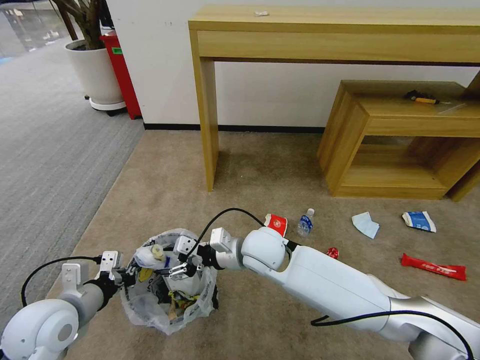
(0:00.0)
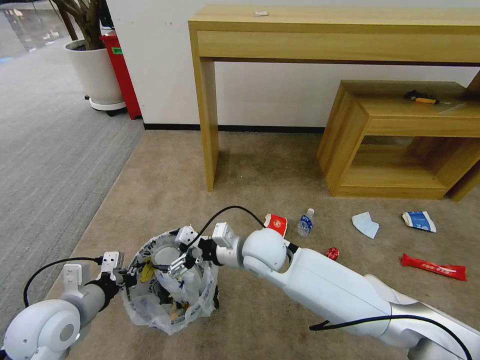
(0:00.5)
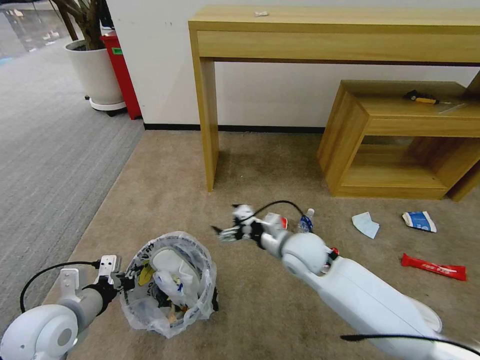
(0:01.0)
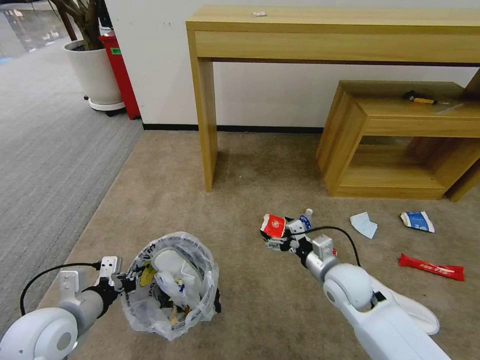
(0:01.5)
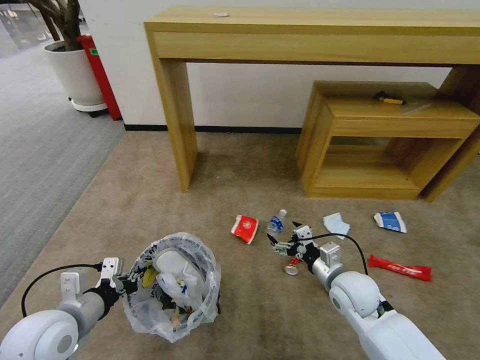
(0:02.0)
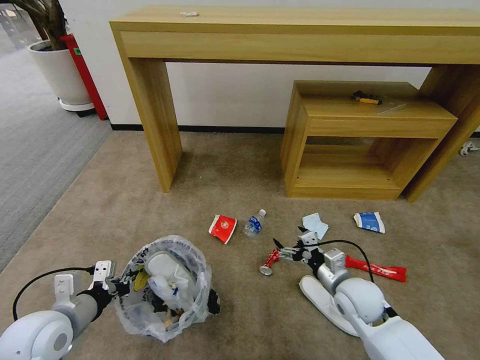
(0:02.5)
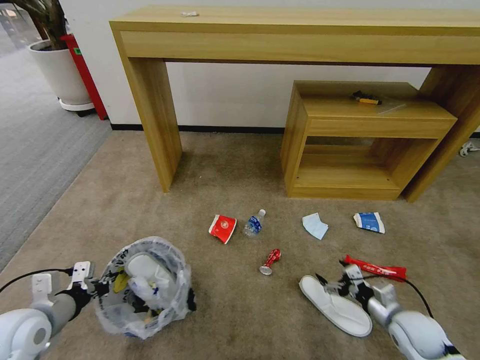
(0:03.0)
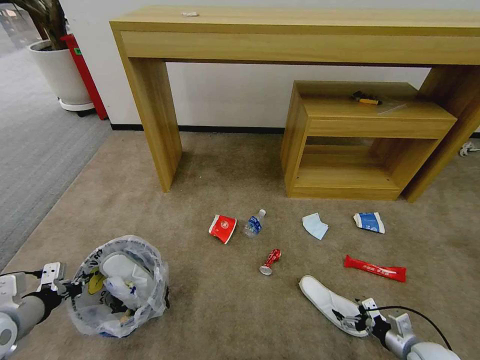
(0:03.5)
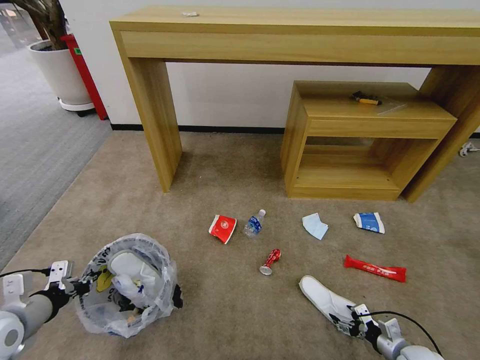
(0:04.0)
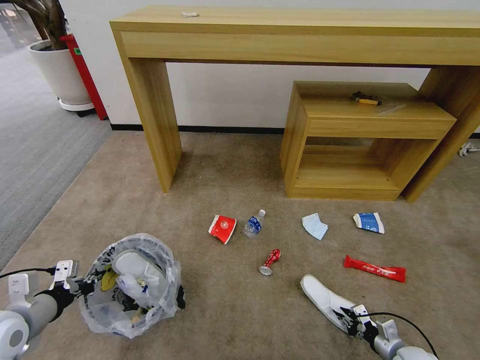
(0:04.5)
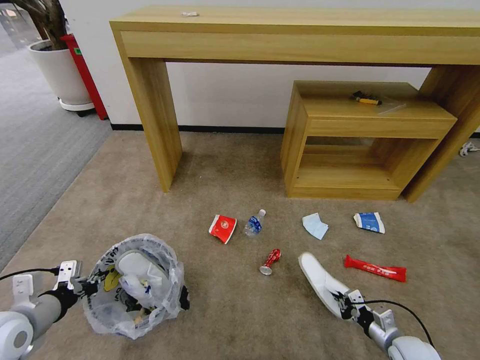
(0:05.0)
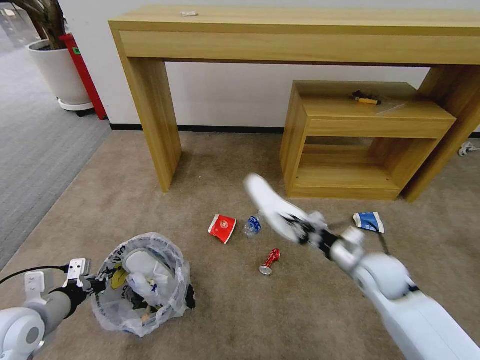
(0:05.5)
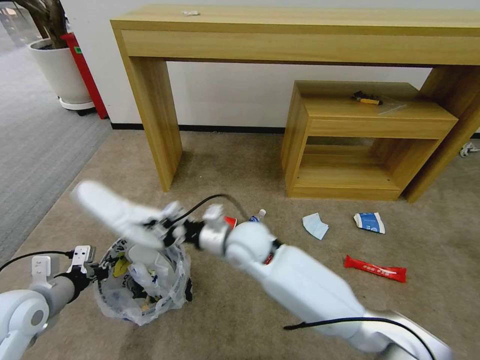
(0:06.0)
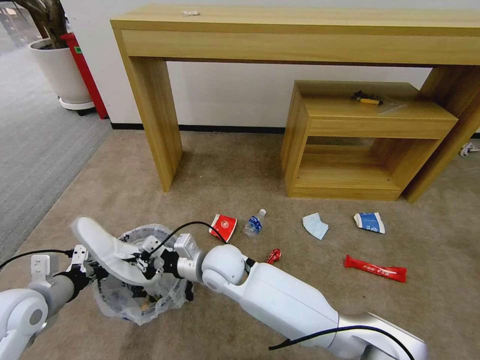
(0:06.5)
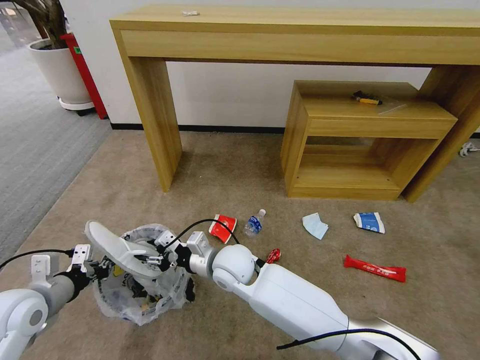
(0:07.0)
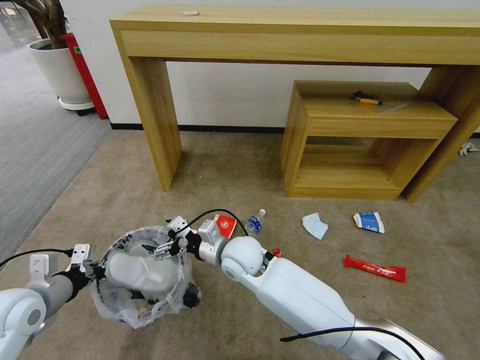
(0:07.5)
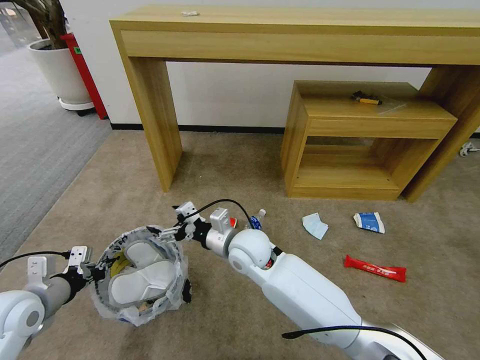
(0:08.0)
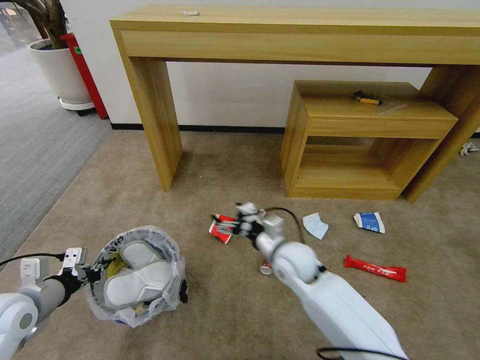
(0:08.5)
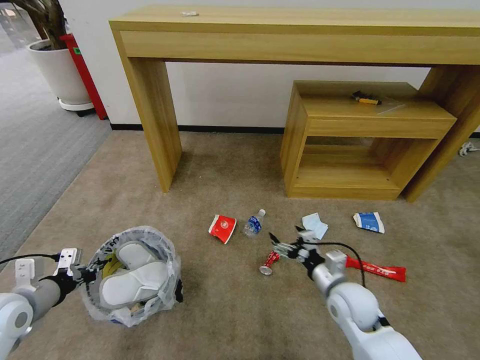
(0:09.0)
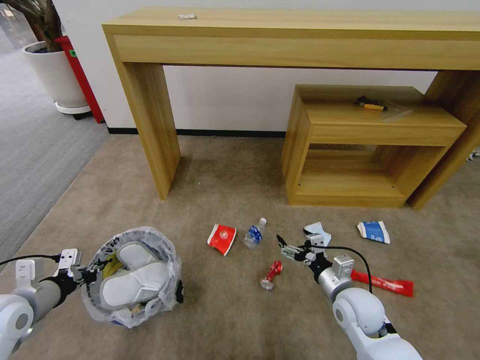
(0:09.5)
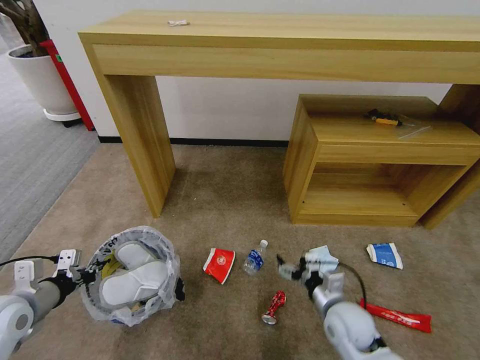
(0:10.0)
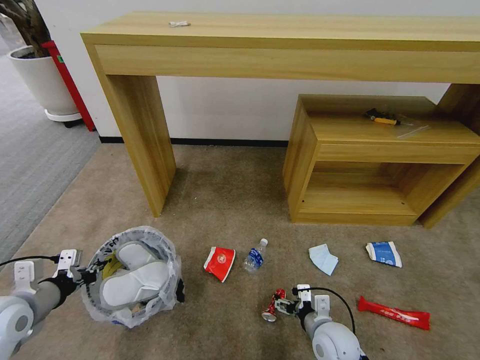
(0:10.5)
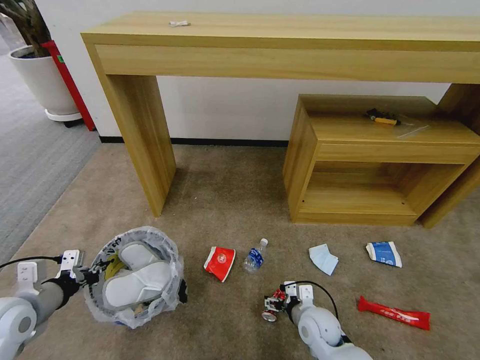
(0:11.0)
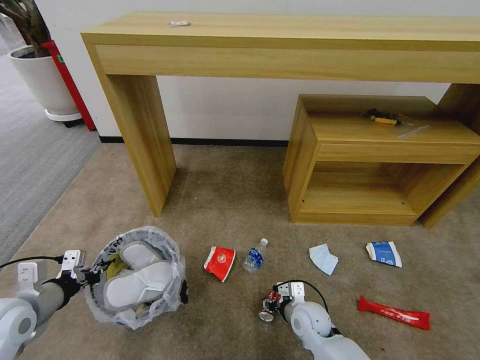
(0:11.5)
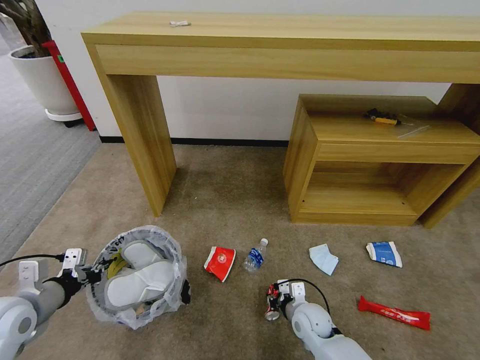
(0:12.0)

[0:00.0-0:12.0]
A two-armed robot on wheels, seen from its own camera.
Task of the whole recording: Pick up the trash bin and place the garbage on the floor into it.
0:00.0 to 0:02.0: The right gripper goes roughly 20 cm to the right, and opens.
0:02.0 to 0:04.0: The left gripper travels to the left by about 10 cm; the right gripper heads to the right, downward and backward, covering approximately 30 cm.
0:04.0 to 0:06.0: The right gripper heads to the left, upward and forward, covering approximately 50 cm, and closes its fingers.
0:06.0 to 0:08.0: The right gripper opens.
0:08.0 to 0:10.0: The right gripper is displaced to the right, backward and downward by about 30 cm.
0:10.0 to 0:12.0: The right gripper travels downward and to the left by some 10 cm, and closes up.

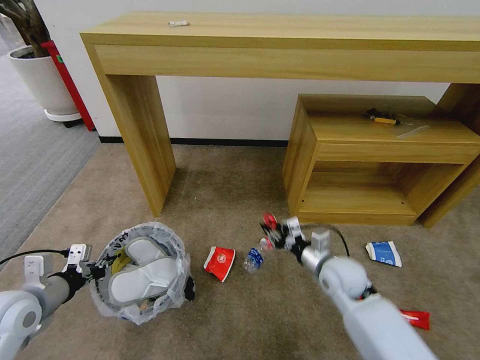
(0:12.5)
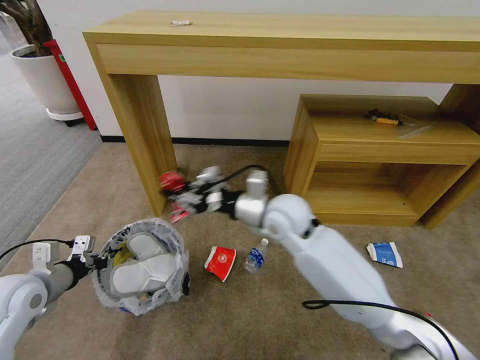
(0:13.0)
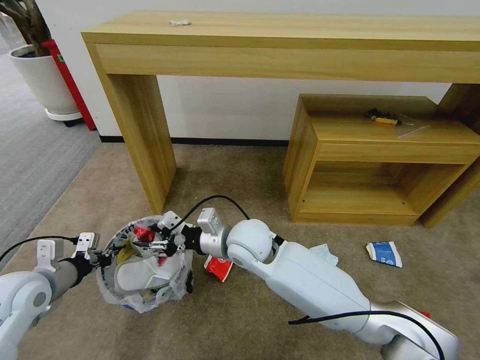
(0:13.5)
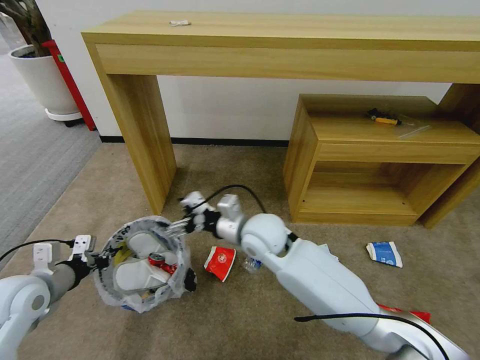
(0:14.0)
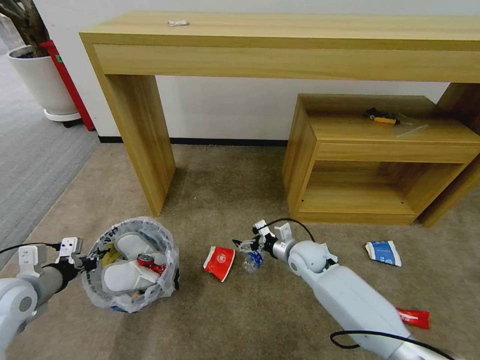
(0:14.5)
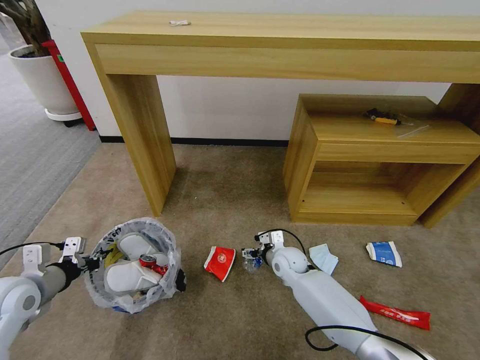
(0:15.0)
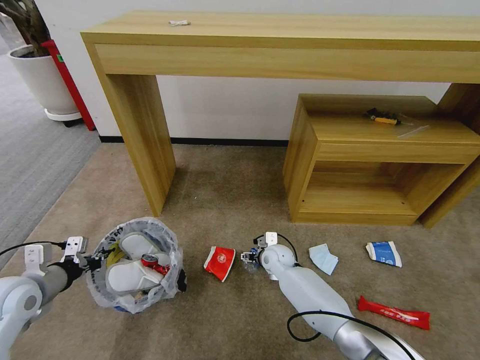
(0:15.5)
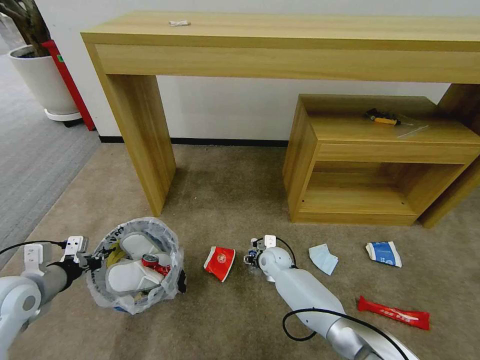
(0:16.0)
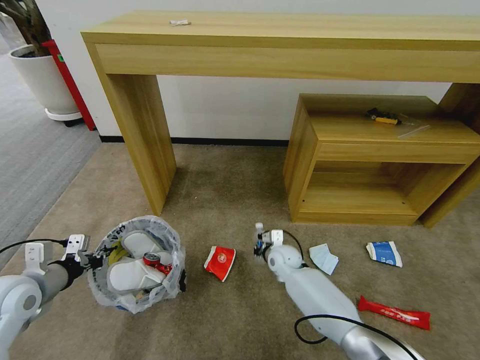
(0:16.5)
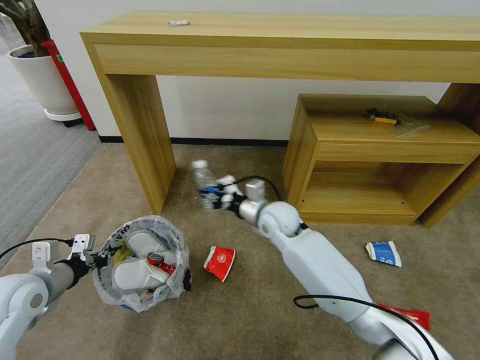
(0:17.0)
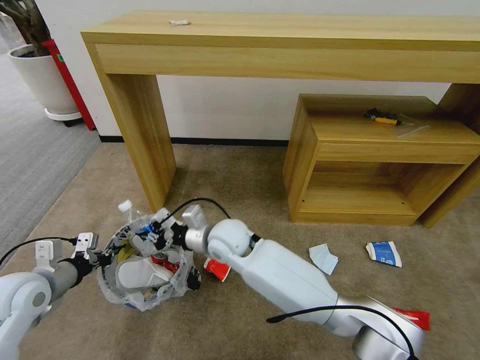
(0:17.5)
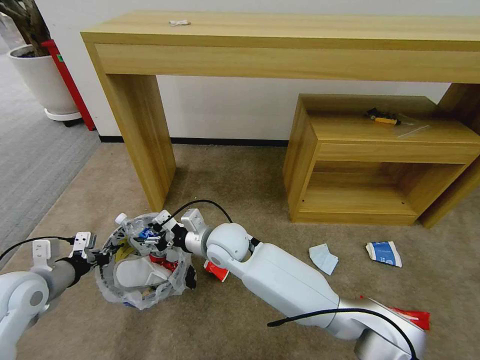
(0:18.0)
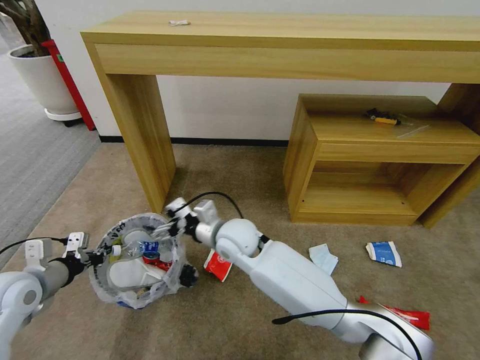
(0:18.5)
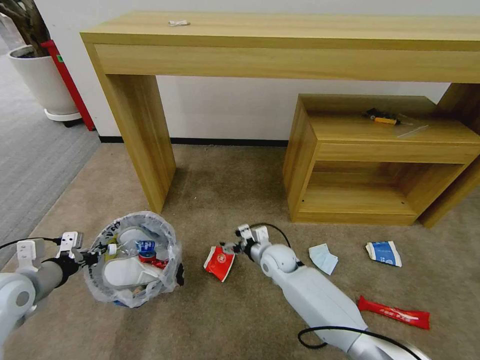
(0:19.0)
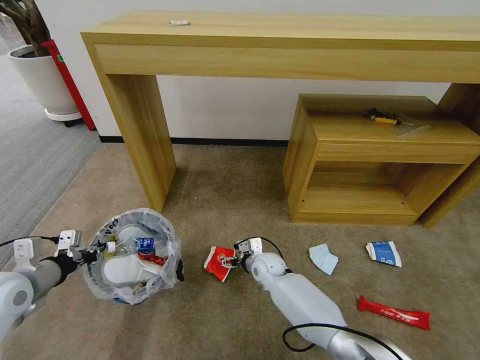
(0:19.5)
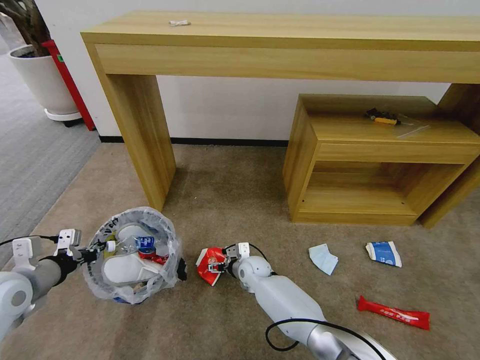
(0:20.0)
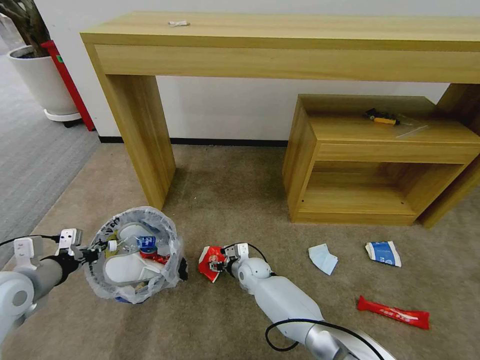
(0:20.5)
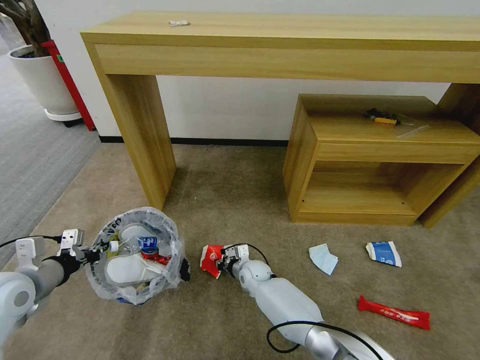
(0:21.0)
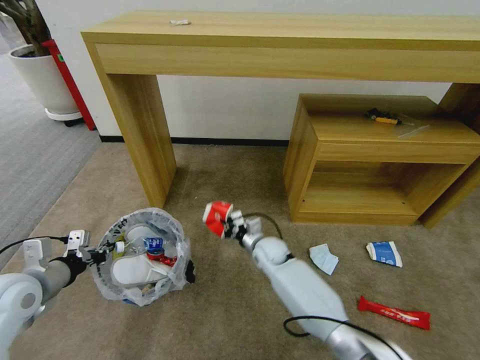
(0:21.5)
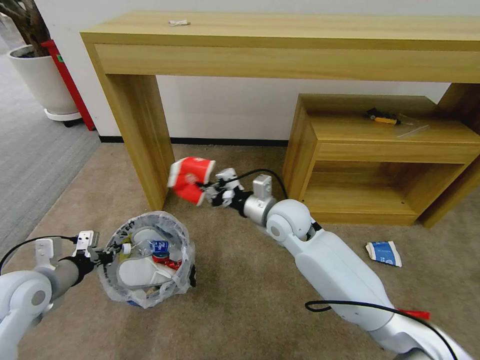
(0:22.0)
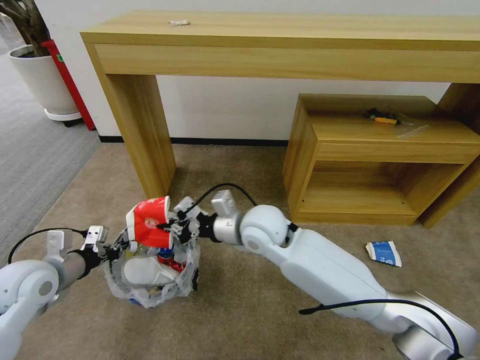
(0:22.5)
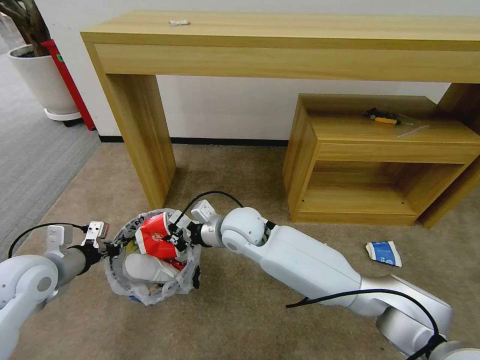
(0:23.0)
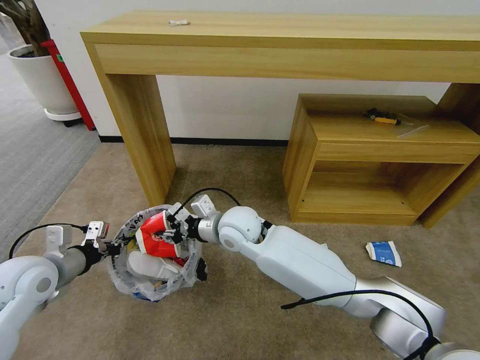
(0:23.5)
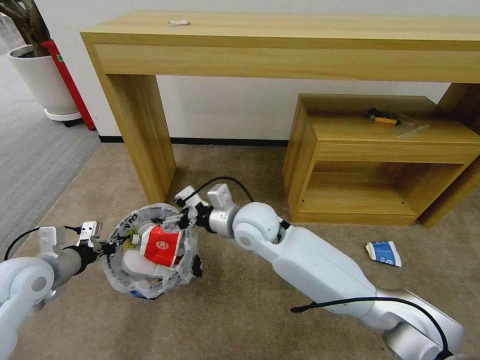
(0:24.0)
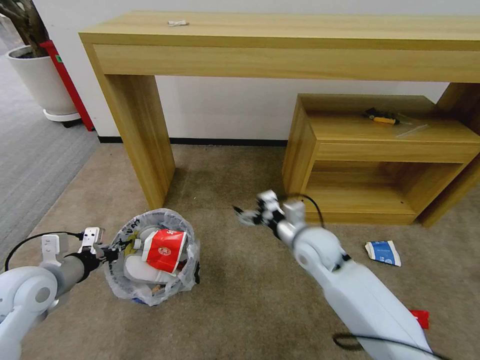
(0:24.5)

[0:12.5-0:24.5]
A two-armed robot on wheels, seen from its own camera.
Task of the whole recording: Pick up the trash bin and place the garbage on the floor into it.
0:12.5 to 0:14.5: The right gripper moves forward, approximately 10 cm, reaches about 20 cm to the left, then returns, and opens its fingers.
0:14.5 to 0:16.5: The right gripper heads downward, covering roughly 10 cm, and closes up.
0:16.5 to 0:18.5: The right gripper travels upward and to the left by roughly 25 cm, and opens.
0:18.5 to 0:20.5: The right gripper travels downward by about 25 cm, and closes.
0:20.5 to 0:22.5: The right gripper goes approximately 30 cm upward, and closes its fingers.
0:22.5 to 0:24.5: The right gripper moves to the right and downward, some 15 cm, and opens up.

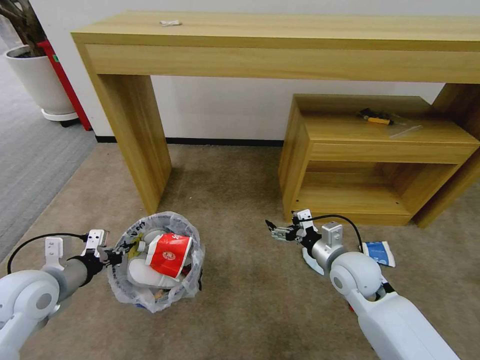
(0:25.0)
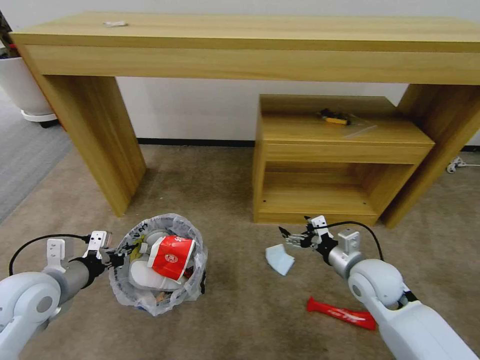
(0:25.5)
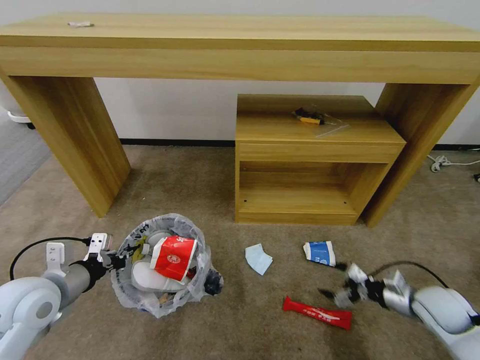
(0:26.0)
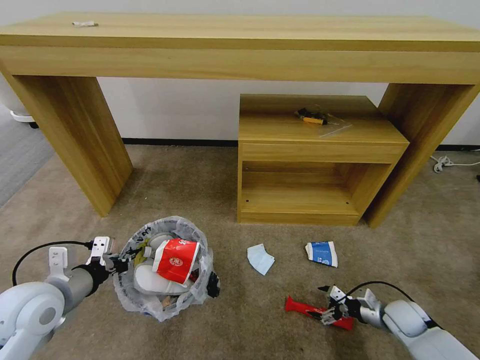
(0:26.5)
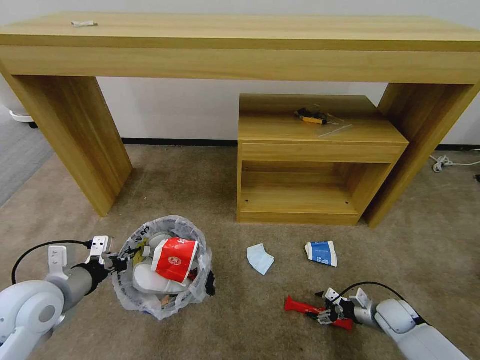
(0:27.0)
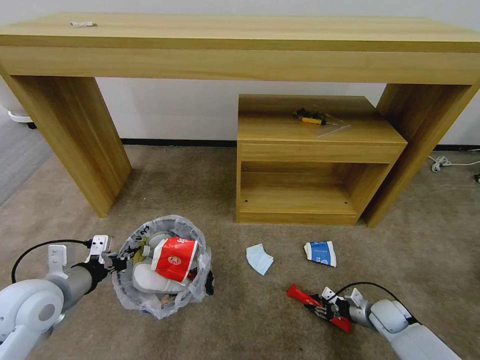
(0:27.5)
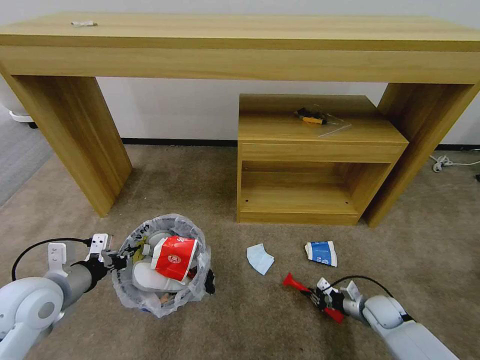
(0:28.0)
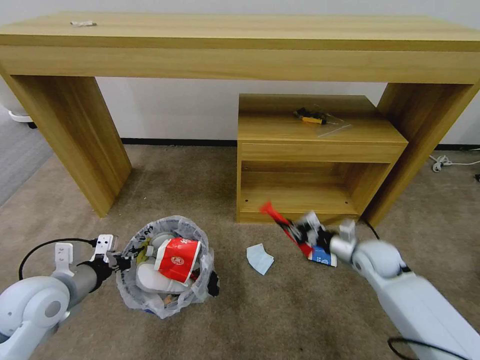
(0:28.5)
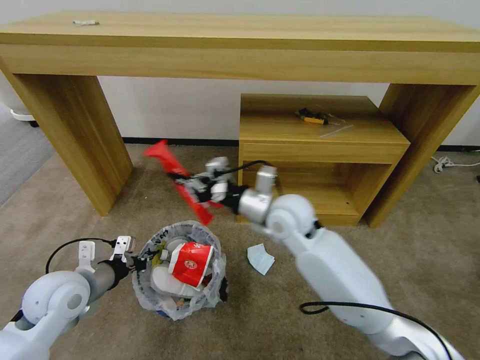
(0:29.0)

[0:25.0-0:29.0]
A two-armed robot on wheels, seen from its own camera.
Task of the whole recording: Pick up the trash bin and place the garbage on the floor into it.
0:25.0 to 0:27.0: The right gripper heads downward and to the right, covering about 30 cm.
0:27.0 to 0:29.0: The right gripper is displaced upward and to the left by about 40 cm, and closes.
